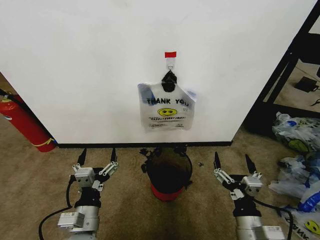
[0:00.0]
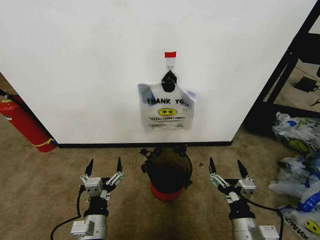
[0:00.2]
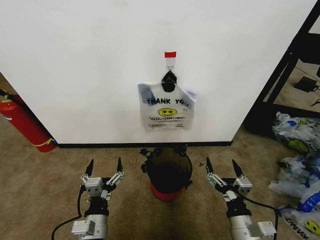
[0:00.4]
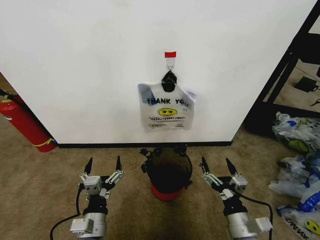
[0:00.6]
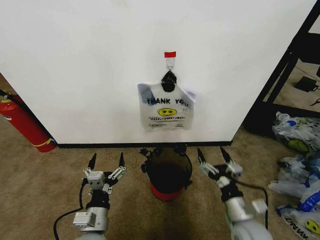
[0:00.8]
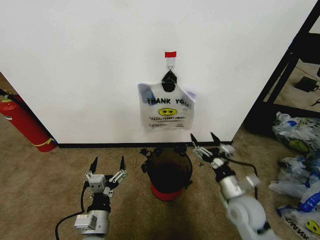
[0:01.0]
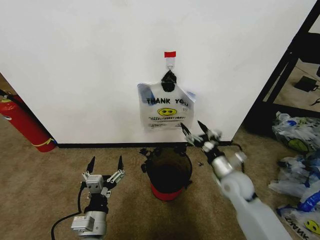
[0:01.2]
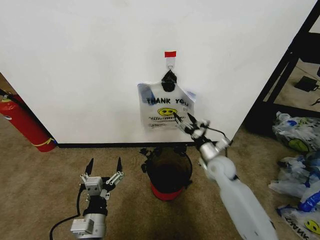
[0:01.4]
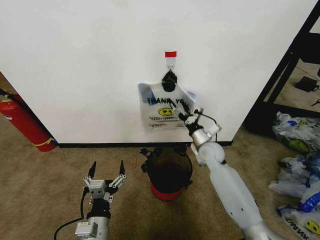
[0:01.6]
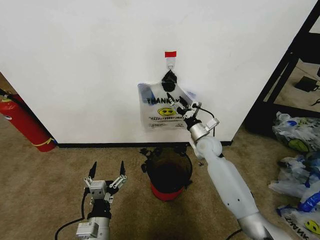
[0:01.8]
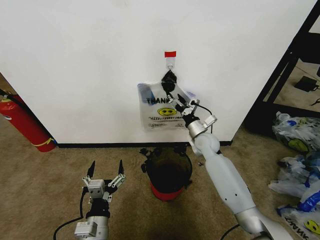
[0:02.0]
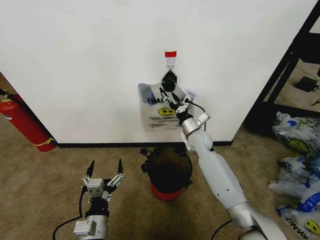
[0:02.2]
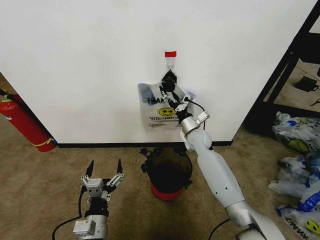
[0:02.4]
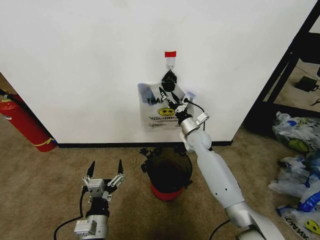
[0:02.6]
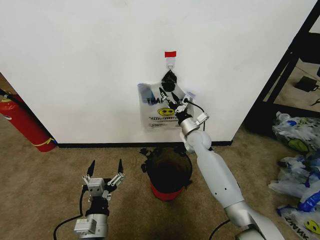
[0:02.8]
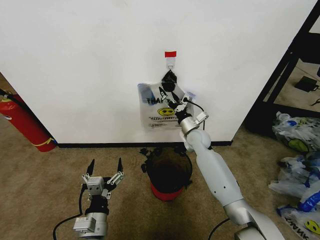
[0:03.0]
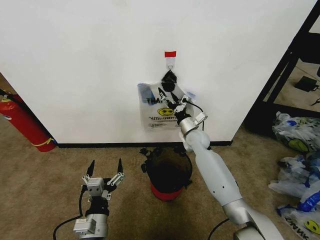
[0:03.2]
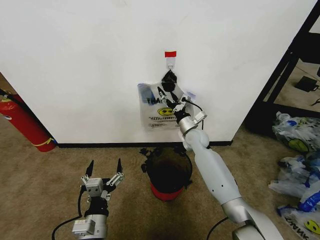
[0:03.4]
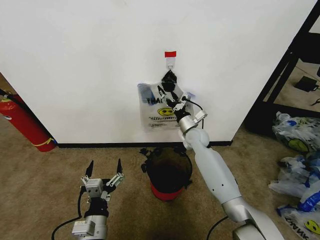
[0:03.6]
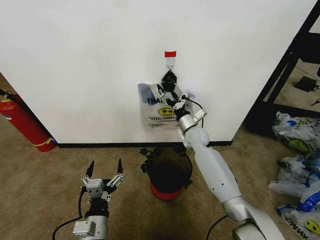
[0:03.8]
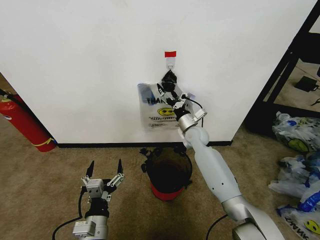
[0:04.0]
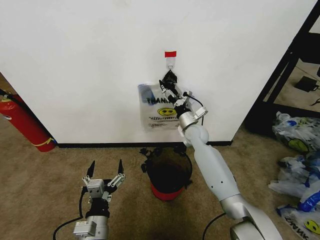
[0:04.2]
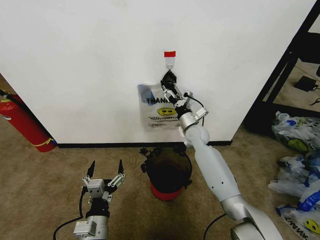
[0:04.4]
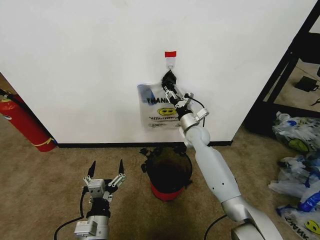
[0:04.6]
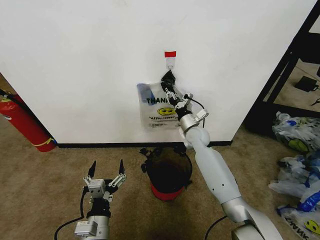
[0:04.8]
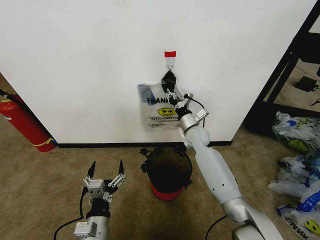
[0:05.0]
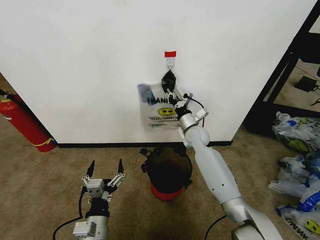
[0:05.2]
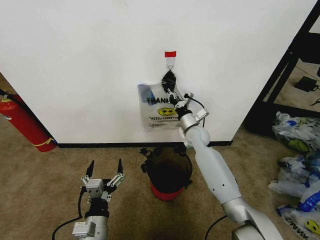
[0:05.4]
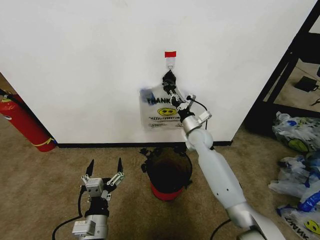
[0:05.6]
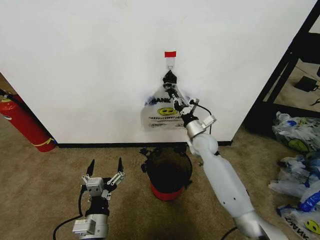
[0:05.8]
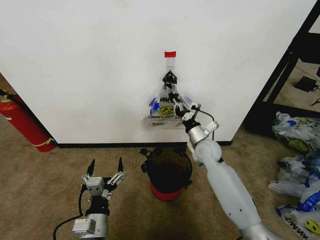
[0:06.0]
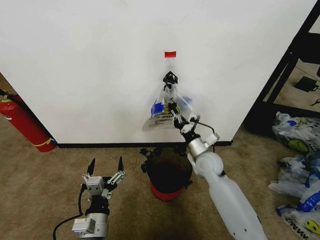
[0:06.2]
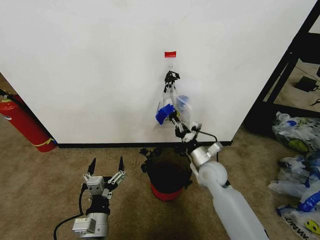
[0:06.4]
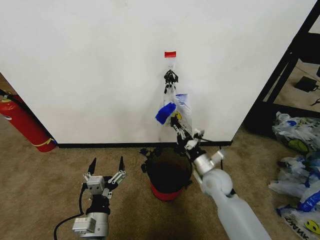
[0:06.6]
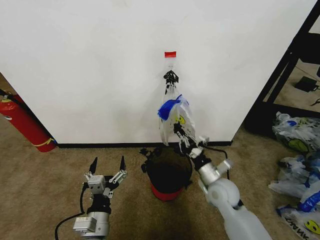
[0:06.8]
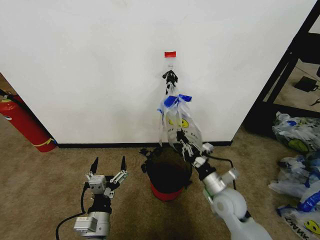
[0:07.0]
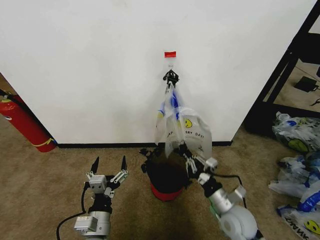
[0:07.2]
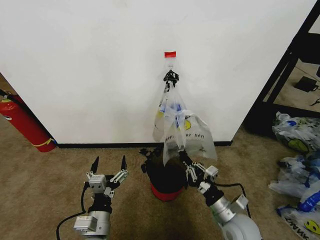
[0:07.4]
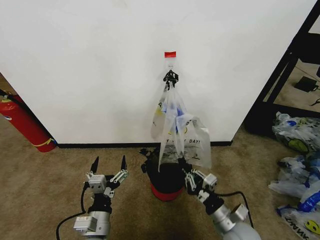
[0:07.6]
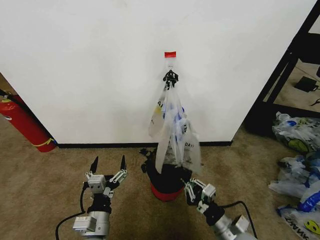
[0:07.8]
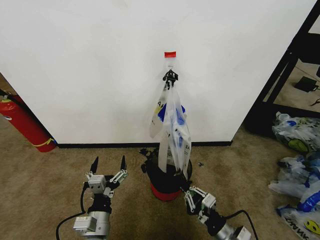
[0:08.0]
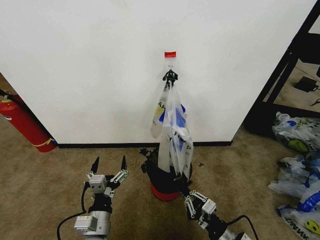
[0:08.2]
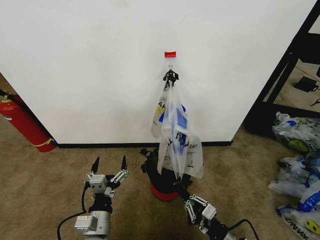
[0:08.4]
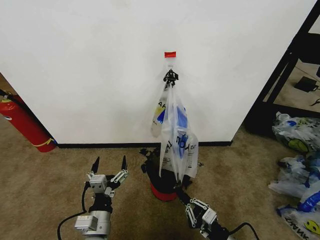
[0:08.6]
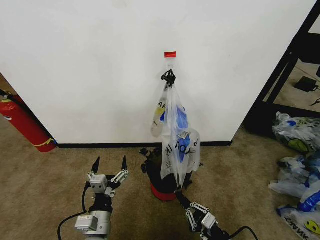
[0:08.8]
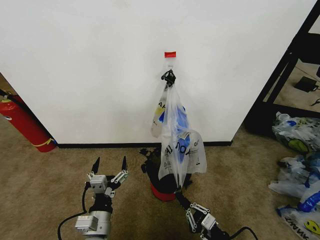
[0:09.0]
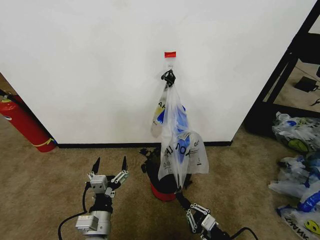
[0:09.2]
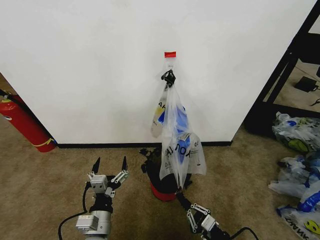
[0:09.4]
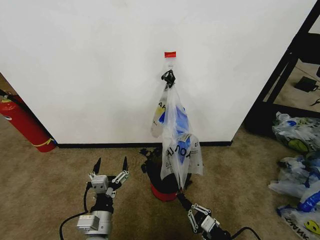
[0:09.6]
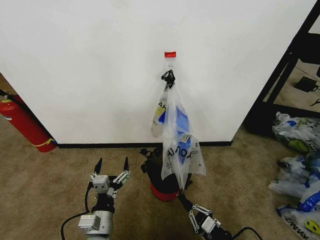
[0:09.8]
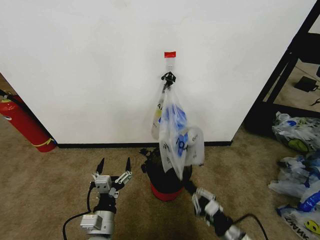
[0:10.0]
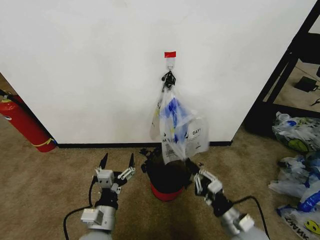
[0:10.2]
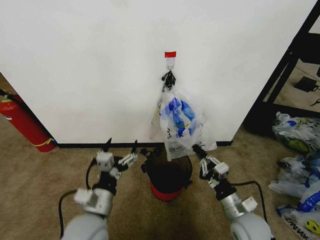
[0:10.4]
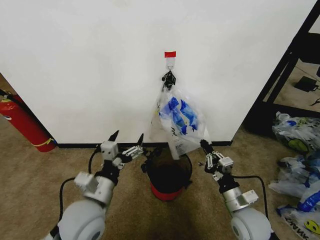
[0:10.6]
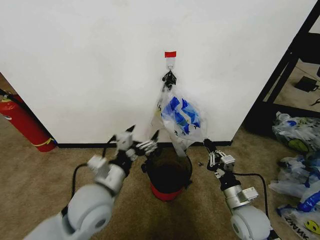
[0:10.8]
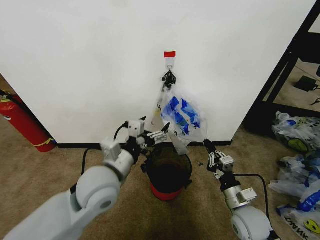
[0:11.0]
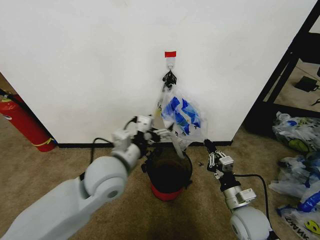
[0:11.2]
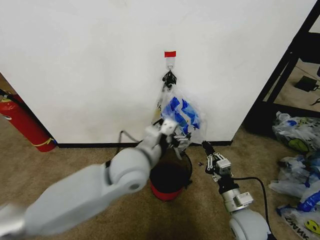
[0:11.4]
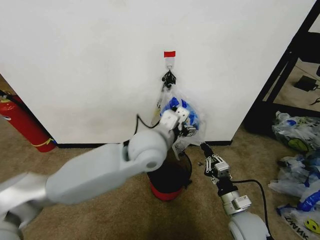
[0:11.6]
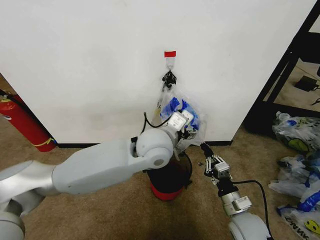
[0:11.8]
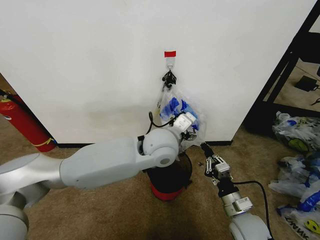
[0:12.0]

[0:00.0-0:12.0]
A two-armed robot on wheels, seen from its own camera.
Task of the whole recording: Pick up the garbage bag from the wall and place it over the trash bin.
0:01.6 to 0:03.0: The right gripper is displaced forward by roughly 5 cm.
0:03.0 to 0:04.4: The grippers make only small movements.
0:04.4 to 0:06.0: The right gripper is displaced backward by about 5 cm, and closes its fingers.
0:06.0 to 0:07.6: The right gripper shifts roughly 25 cm backward.
0:07.6 to 0:09.0: The right gripper is displaced backward by about 10 cm.
0:09.0 to 0:10.4: The right gripper is displaced forward and upward by approximately 10 cm. The left gripper travels upward by about 5 cm.
0:10.4 to 0:12.0: The left gripper goes about 30 cm forward, to the right and upward.

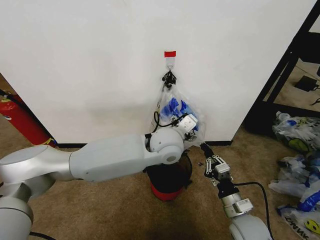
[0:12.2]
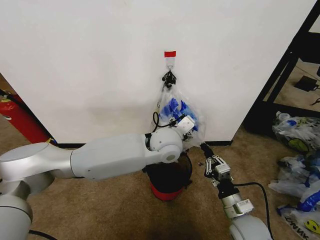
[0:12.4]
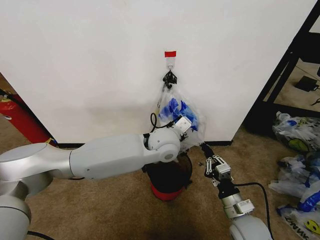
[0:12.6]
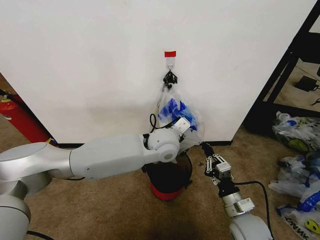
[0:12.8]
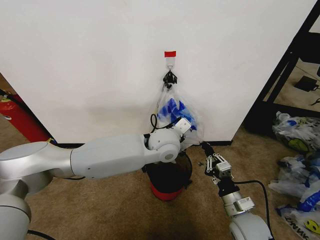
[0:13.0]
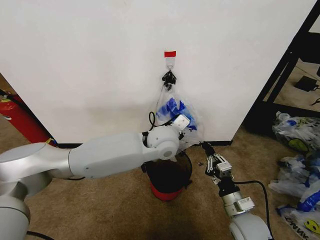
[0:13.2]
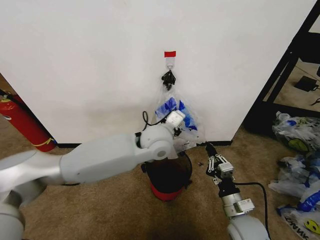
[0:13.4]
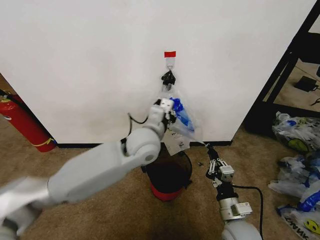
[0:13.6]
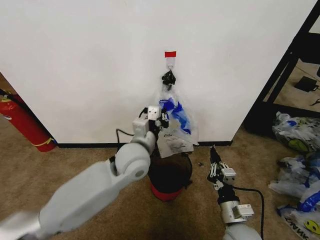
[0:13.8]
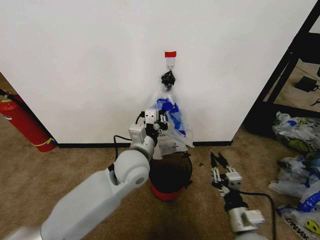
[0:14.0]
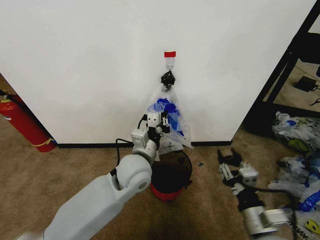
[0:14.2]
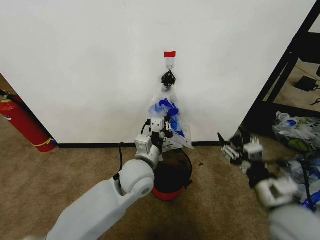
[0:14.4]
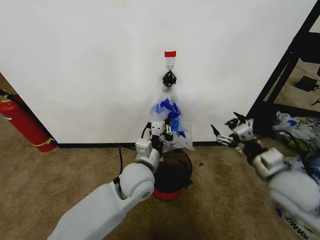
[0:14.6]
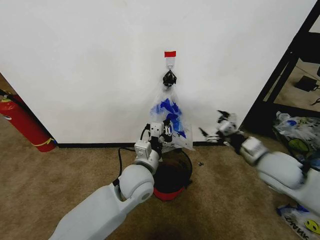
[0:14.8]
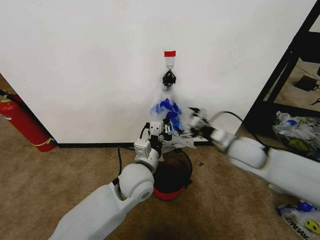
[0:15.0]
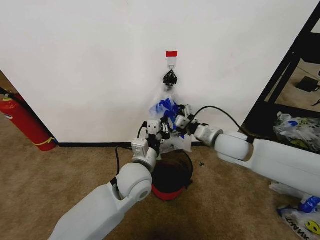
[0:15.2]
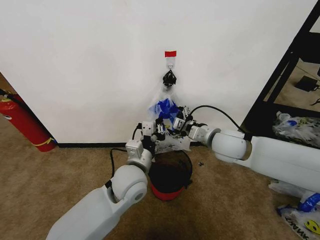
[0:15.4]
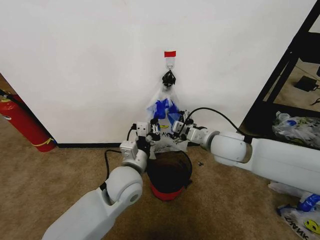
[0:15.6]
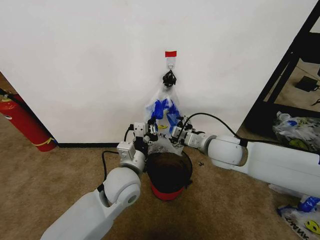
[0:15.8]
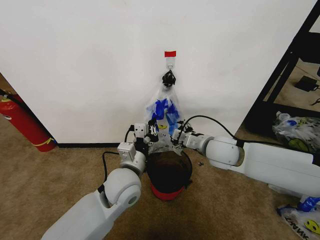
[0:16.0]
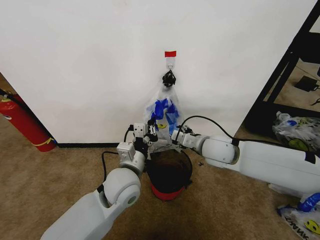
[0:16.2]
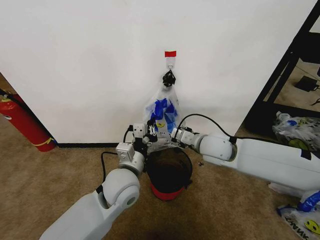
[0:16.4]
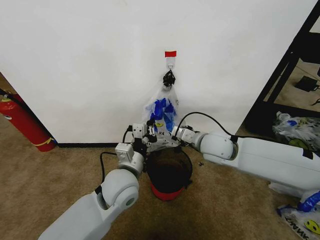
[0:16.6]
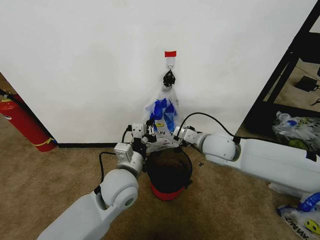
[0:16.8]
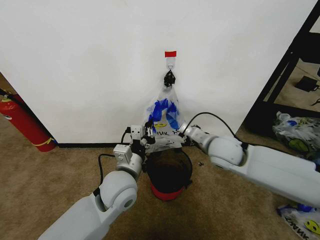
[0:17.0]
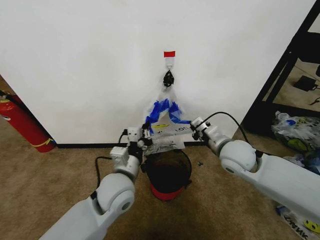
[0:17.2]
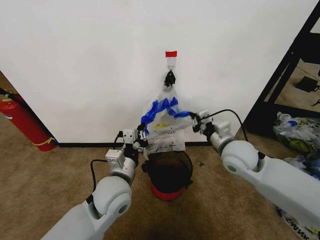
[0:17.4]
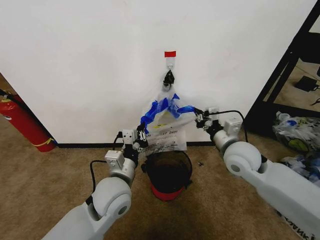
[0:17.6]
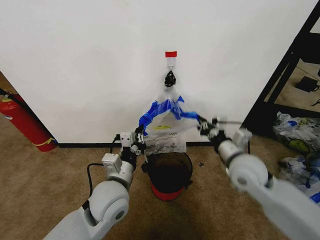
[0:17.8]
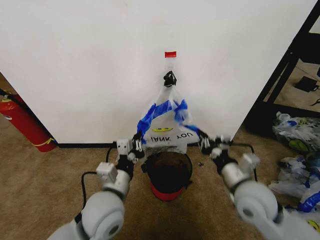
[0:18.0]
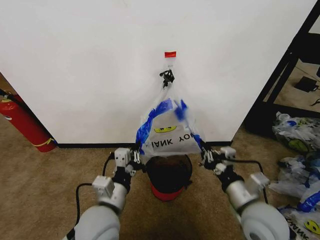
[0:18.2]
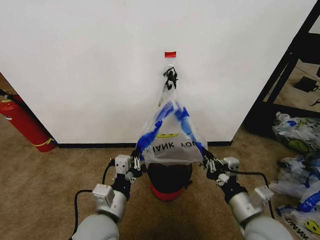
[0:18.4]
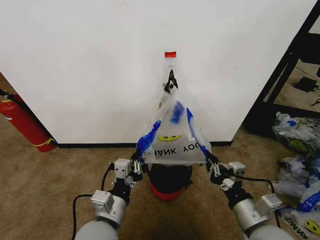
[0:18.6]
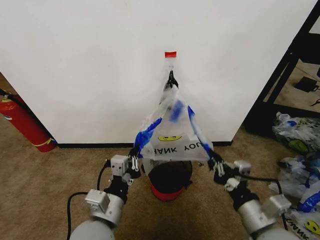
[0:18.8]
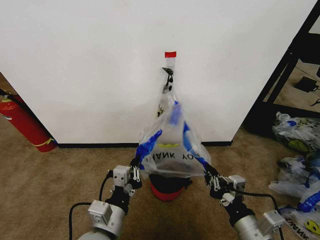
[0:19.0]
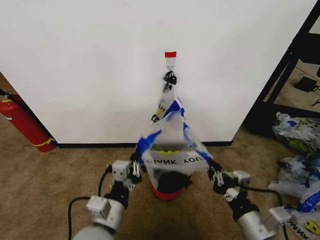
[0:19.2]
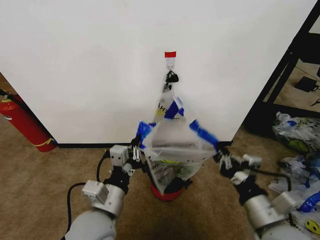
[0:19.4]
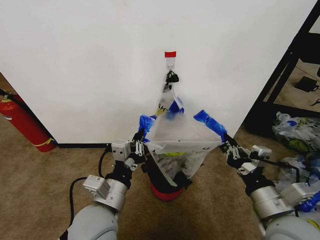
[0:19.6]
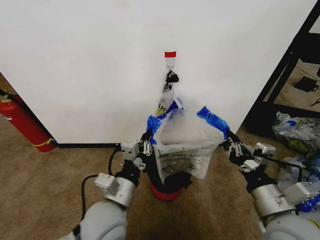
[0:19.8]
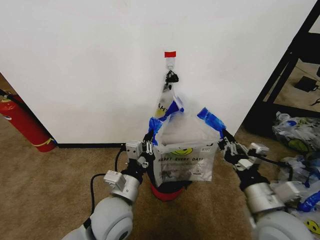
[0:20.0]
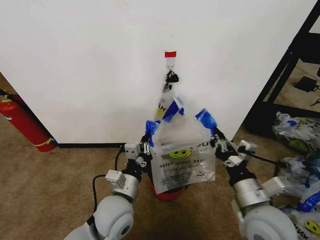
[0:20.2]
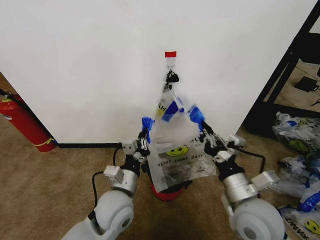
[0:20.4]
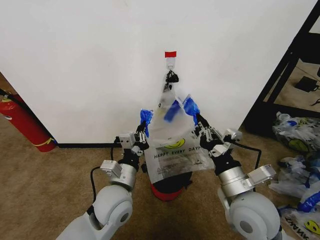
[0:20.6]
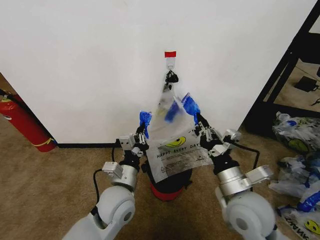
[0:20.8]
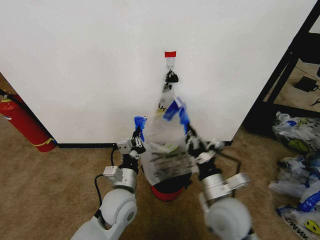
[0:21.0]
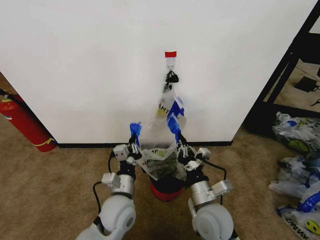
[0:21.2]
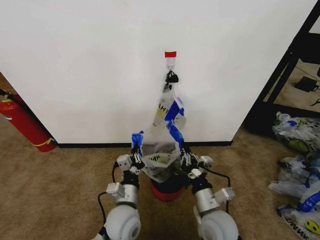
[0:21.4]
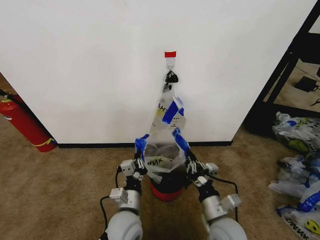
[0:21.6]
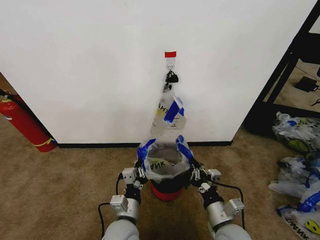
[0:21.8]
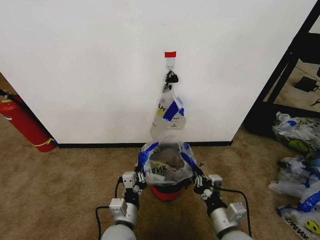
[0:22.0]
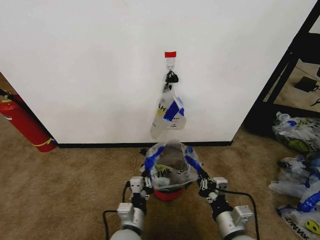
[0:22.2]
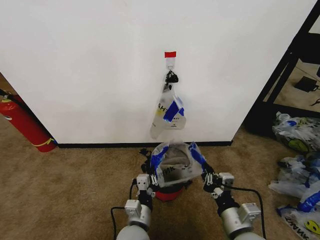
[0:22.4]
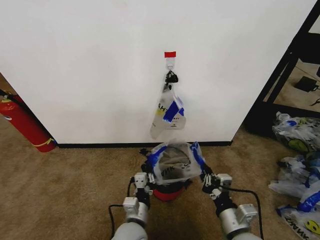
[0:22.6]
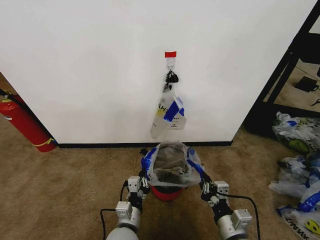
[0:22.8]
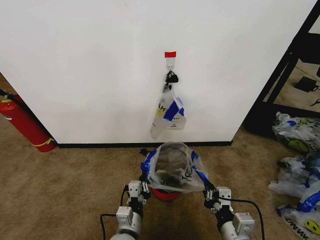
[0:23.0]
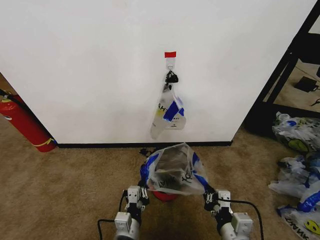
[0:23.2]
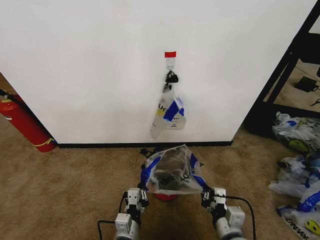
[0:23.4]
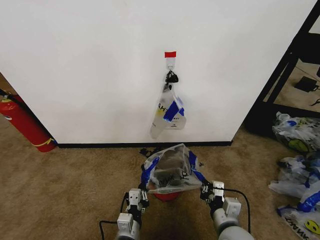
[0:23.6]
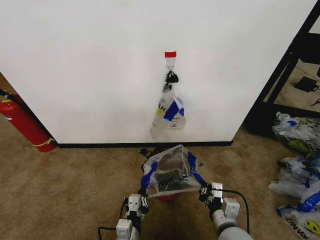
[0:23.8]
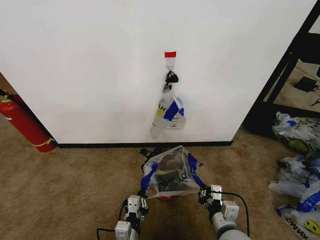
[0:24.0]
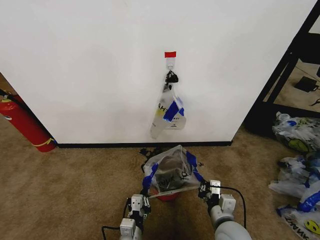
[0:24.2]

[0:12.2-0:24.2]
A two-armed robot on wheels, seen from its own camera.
Task of the whole recording: Pick up the garbage bag from the wall and place it over the trash bin.
0:12.2 to 0:13.8: The left gripper goes approximately 10 cm to the left, and closes up.
0:13.8 to 0:15.2: The right gripper is displaced forward and upward by roughly 25 cm, and opens its fingers. The left gripper is displaced downward by some 5 cm.
0:15.2 to 0:16.6: The right gripper closes.
0:16.6 to 0:18.2: The left gripper goes approximately 10 cm backward. The right gripper moves backward, roughly 20 cm.
0:18.2 to 0:19.8: The right gripper shifts roughly 5 cm upward.
0:19.8 to 0:21.2: The right gripper is displaced to the left, downward and forward by some 15 cm. Meanwhile the left gripper shifts about 10 cm downward and forward.
0:21.2 to 0:22.6: The left gripper moves downward and backward, some 10 cm; the right gripper heads to the right and backward, covering some 10 cm.
0:22.6 to 0:24.2: The right gripper shifts by some 5 cm. Meanwhile the left gripper is displaced backward by some 5 cm.
